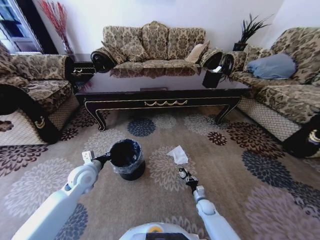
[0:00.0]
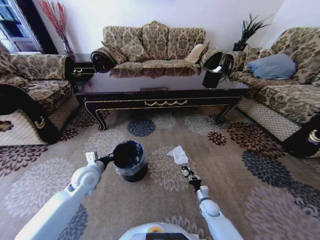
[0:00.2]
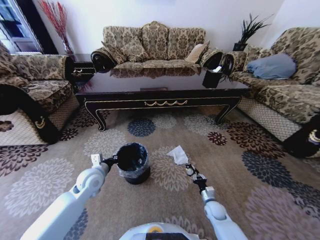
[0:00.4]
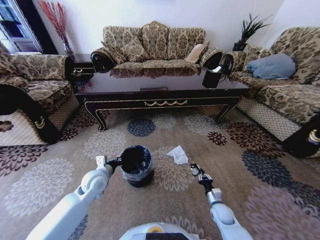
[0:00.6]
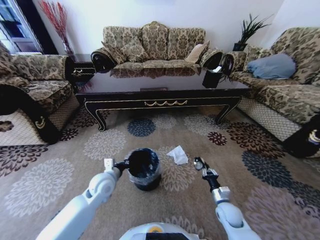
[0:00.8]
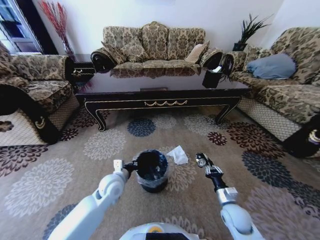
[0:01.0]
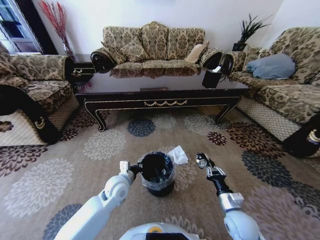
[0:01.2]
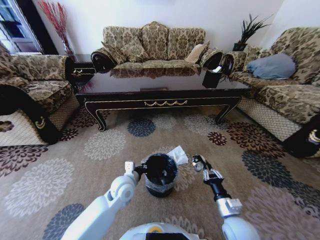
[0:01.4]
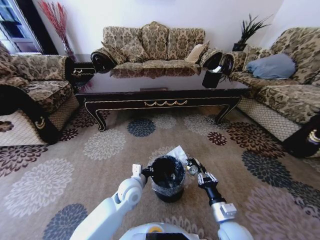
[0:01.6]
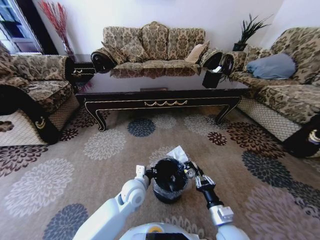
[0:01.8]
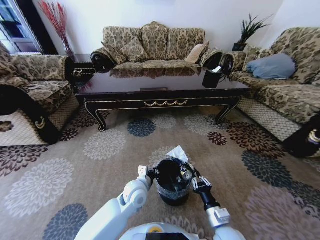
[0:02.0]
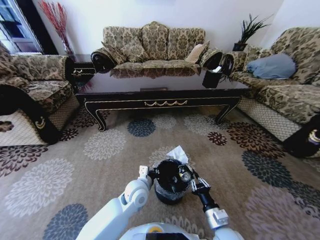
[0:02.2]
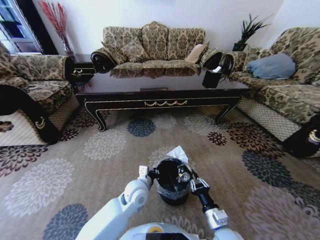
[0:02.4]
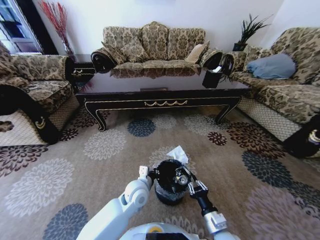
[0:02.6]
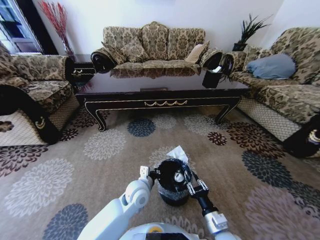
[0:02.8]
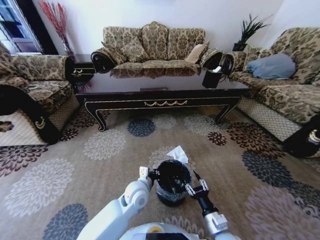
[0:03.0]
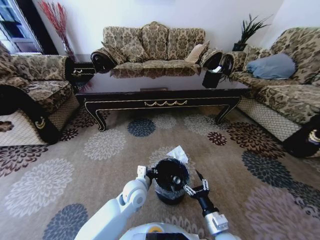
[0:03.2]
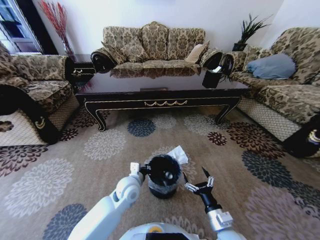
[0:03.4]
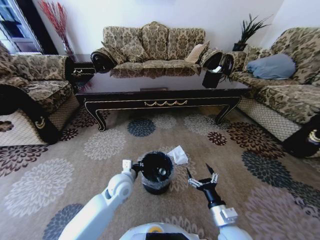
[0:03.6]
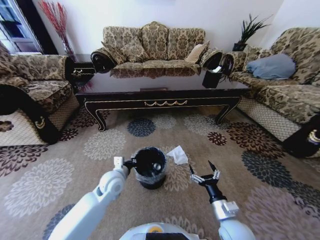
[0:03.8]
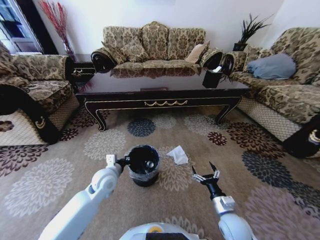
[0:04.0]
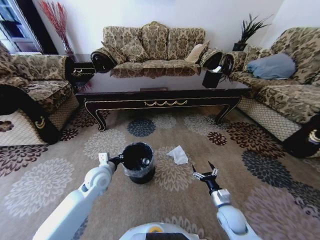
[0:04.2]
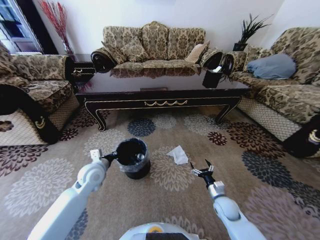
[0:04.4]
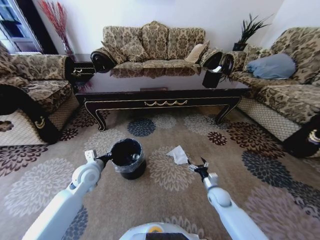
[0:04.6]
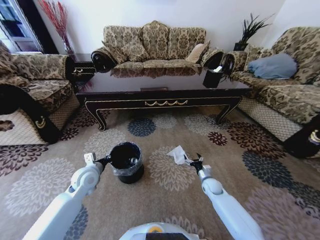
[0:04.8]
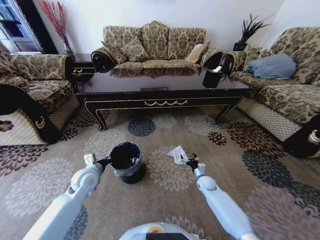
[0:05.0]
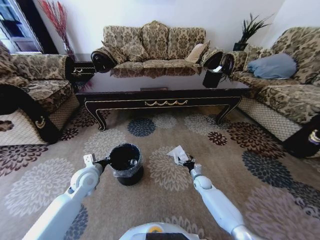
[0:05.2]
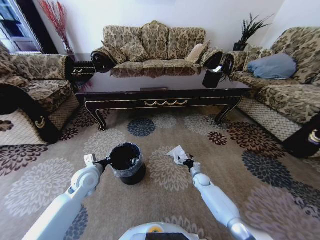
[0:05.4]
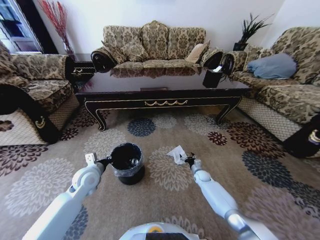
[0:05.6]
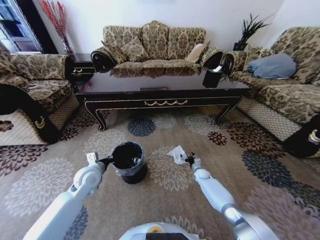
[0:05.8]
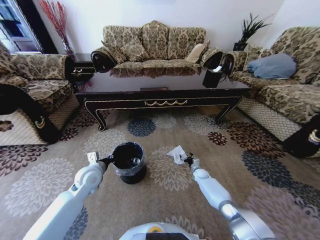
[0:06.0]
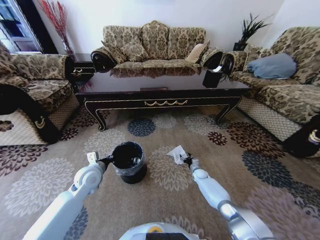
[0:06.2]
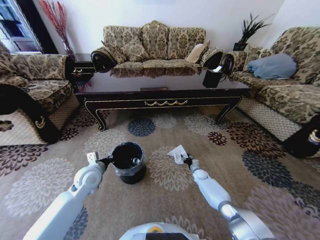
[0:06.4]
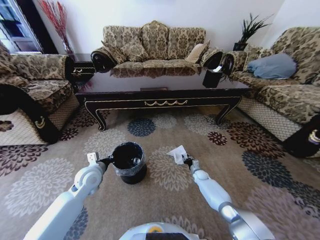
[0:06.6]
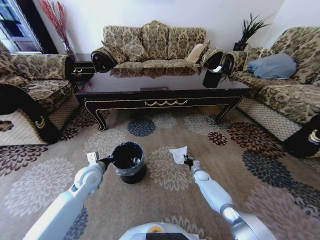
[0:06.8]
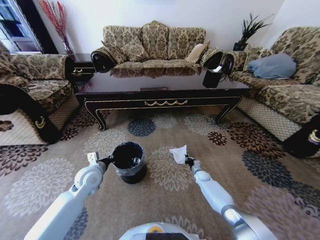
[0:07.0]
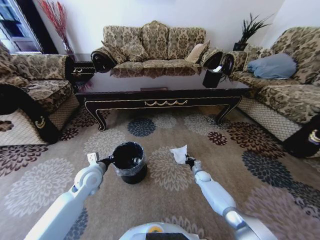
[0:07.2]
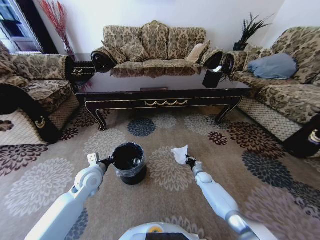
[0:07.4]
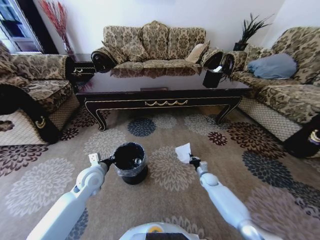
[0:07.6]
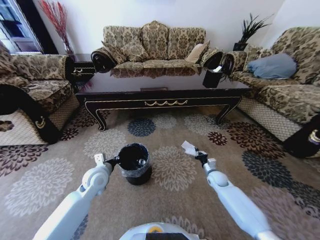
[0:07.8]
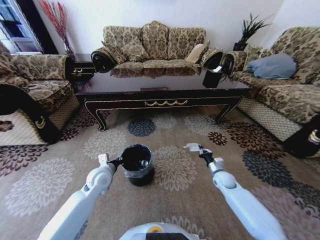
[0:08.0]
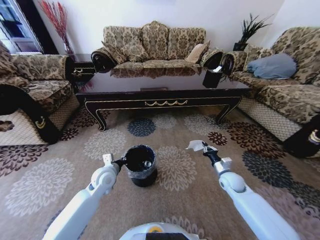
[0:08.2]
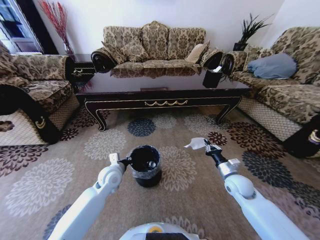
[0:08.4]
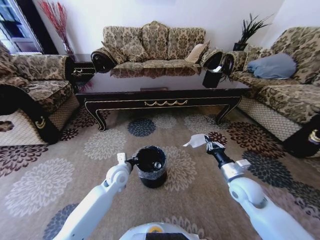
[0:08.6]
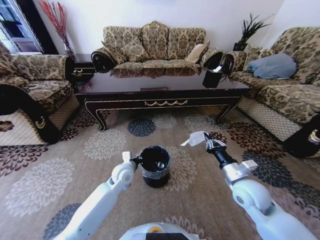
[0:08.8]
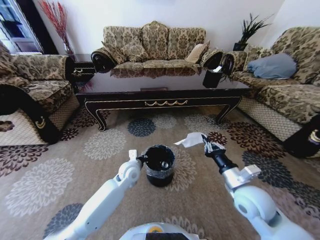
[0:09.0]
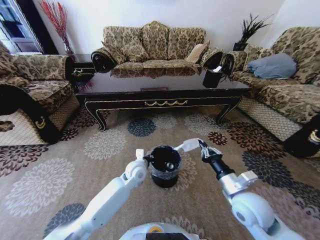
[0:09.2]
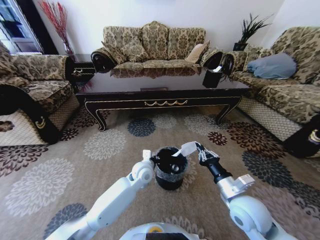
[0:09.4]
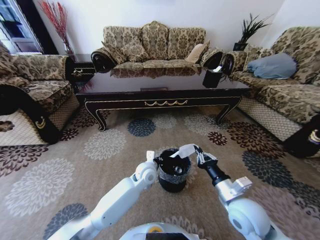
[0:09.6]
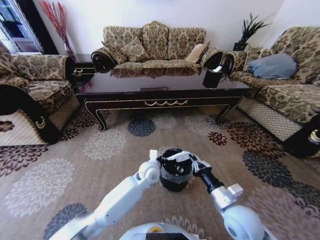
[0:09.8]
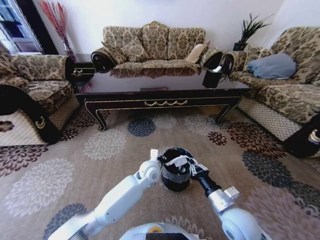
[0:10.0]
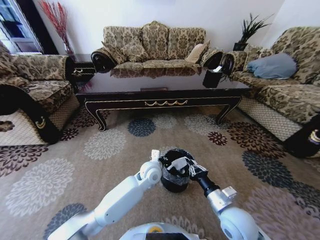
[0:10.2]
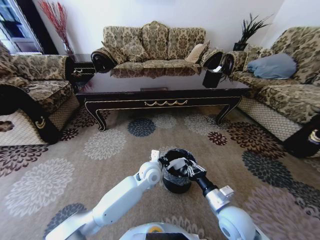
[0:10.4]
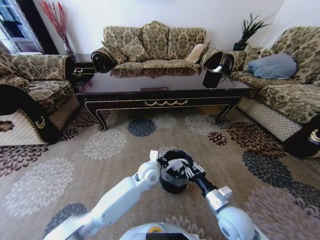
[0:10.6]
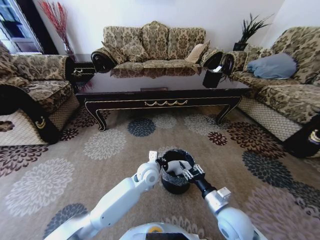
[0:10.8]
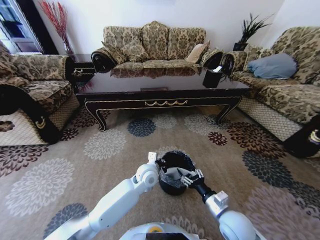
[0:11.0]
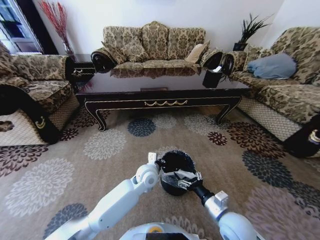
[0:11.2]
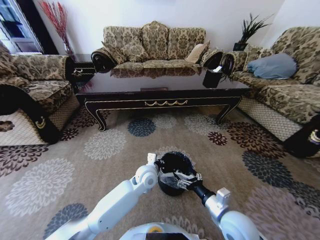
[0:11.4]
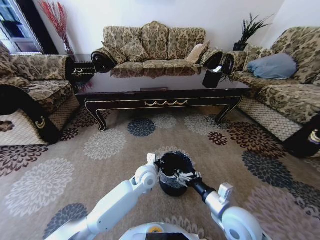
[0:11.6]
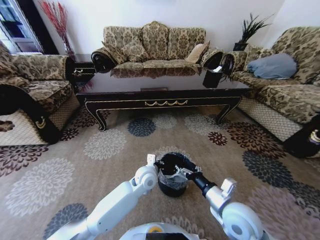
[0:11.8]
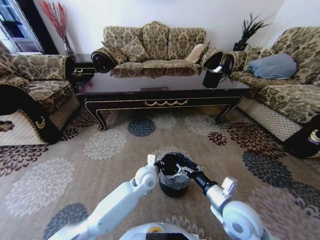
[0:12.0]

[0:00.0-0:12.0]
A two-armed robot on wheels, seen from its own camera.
Task of the whole recording: Move to the front of the table and pick up the trash from the floor, then place it into the trash bin.
0:00.0 to 0:01.6: The left gripper is displaced to the right by some 20 cm, while the right gripper moves upward and backward, about 25 cm.
0:01.6 to 0:03.0: The right gripper opens its fingers.
0:03.0 to 0:04.4: The right gripper shifts roughly 15 cm forward, to the right and downward, and opens up; the left gripper goes about 20 cm to the left.
0:04.4 to 0:06.0: The right gripper moves forward and downward, roughly 25 cm.
0:06.0 to 0:07.6: The right gripper goes some 5 cm backward, and closes.
0:07.6 to 0:09.0: The right gripper shifts approximately 35 cm upward and backward. The left gripper shifts some 15 cm to the right.
0:09.0 to 0:10.4: The right gripper shifts about 5 cm downward, while the left gripper goes some 10 cm to the right.
0:10.4 to 0:12.0: The right gripper moves about 5 cm, and opens.

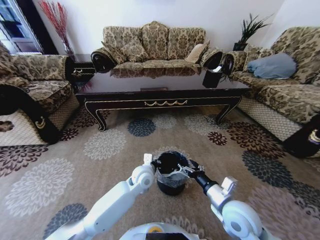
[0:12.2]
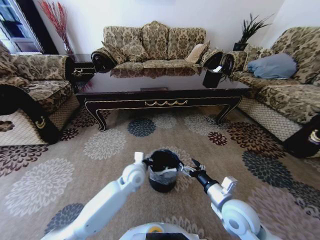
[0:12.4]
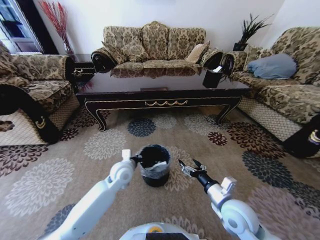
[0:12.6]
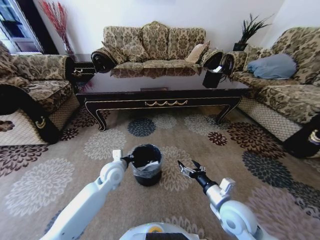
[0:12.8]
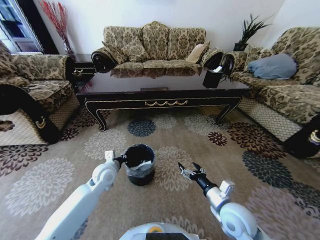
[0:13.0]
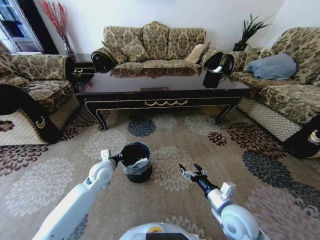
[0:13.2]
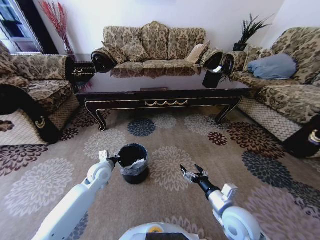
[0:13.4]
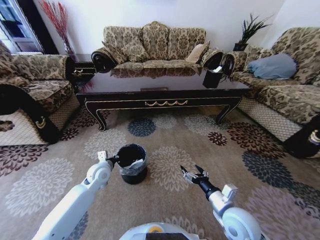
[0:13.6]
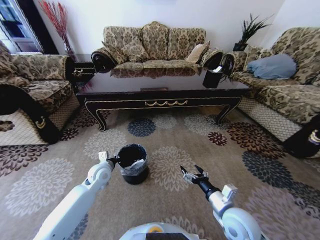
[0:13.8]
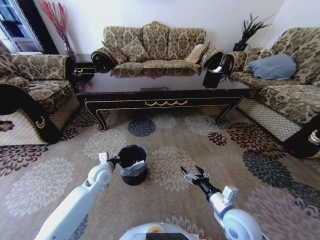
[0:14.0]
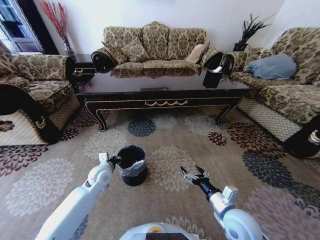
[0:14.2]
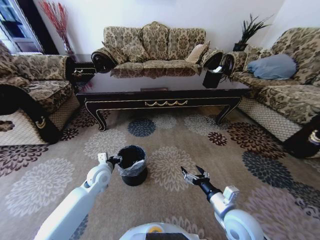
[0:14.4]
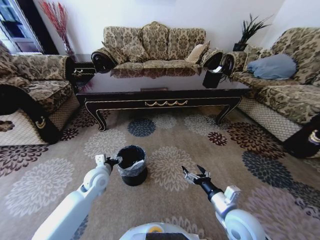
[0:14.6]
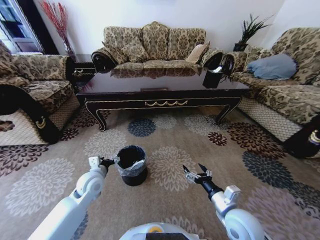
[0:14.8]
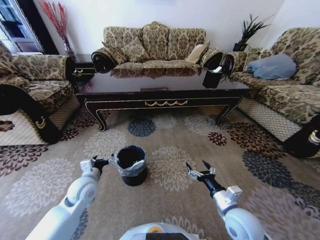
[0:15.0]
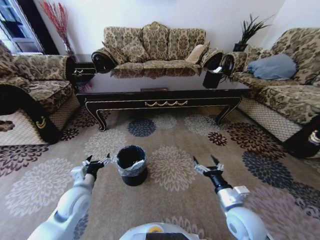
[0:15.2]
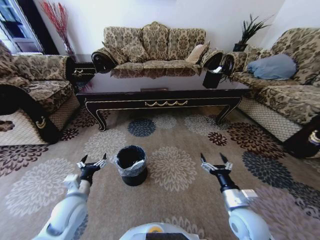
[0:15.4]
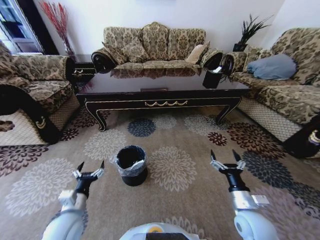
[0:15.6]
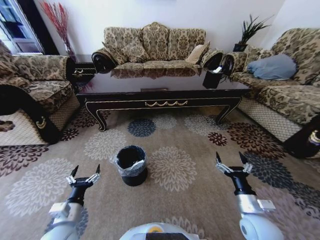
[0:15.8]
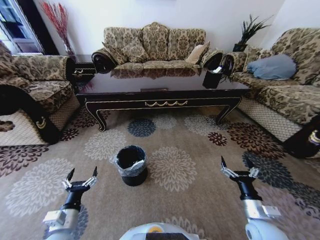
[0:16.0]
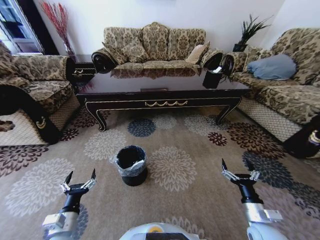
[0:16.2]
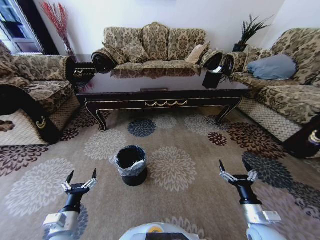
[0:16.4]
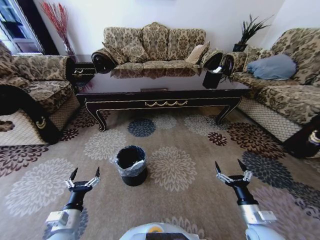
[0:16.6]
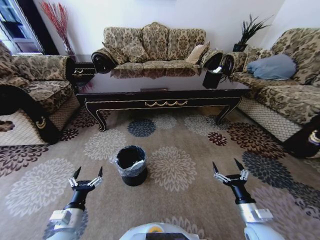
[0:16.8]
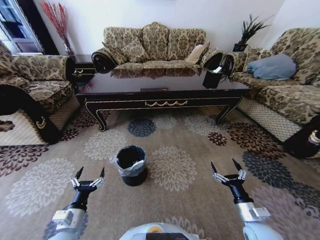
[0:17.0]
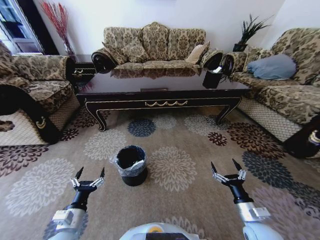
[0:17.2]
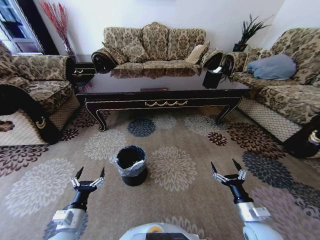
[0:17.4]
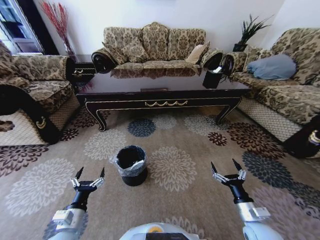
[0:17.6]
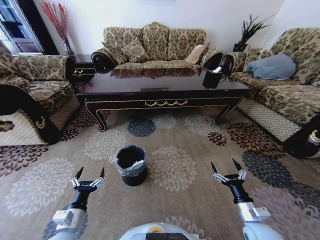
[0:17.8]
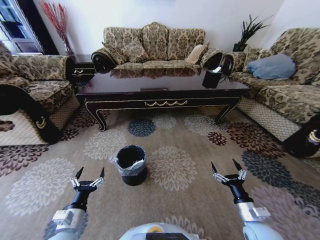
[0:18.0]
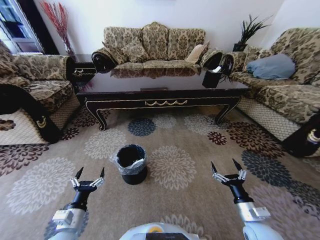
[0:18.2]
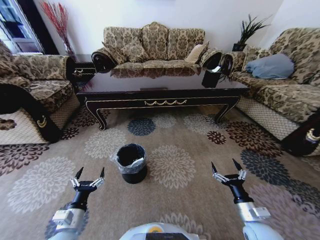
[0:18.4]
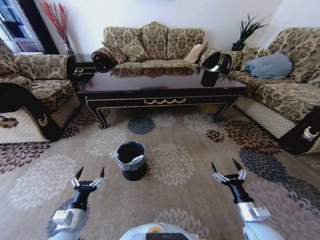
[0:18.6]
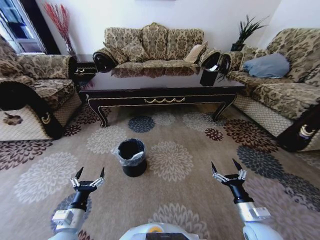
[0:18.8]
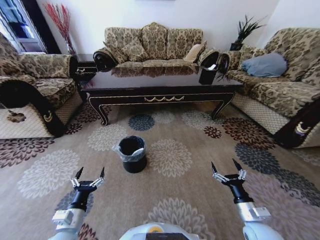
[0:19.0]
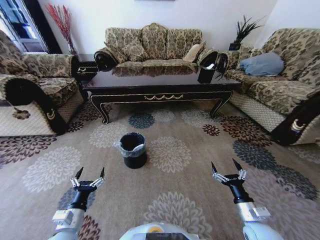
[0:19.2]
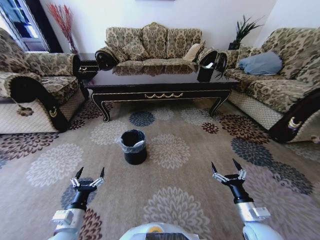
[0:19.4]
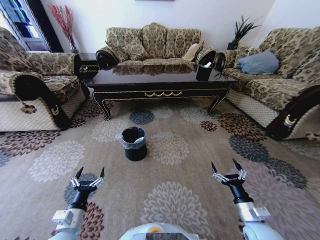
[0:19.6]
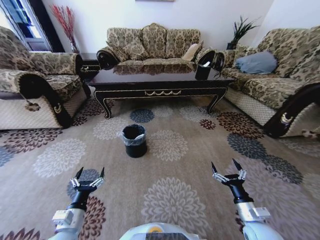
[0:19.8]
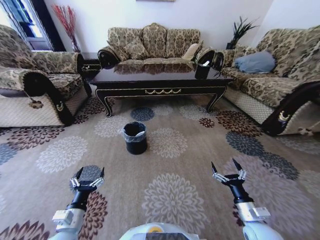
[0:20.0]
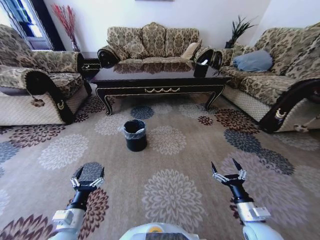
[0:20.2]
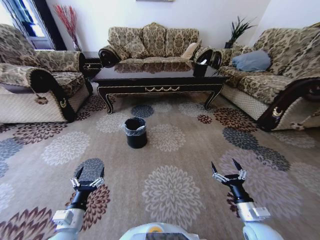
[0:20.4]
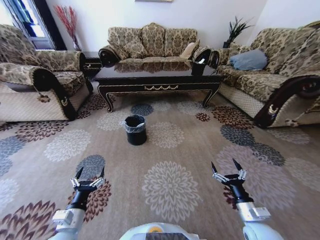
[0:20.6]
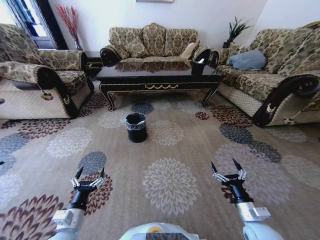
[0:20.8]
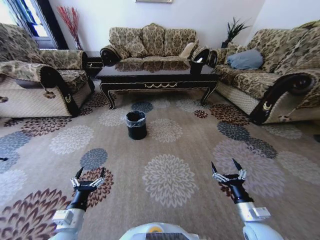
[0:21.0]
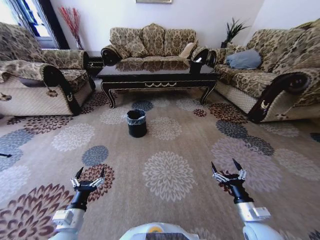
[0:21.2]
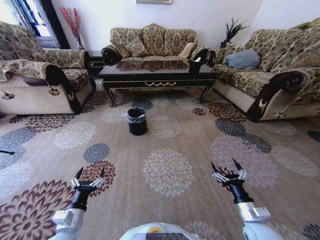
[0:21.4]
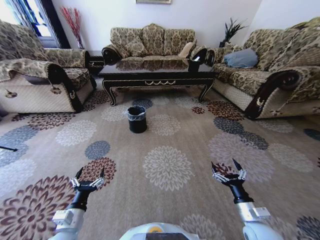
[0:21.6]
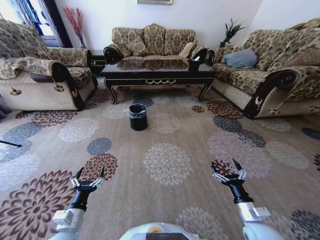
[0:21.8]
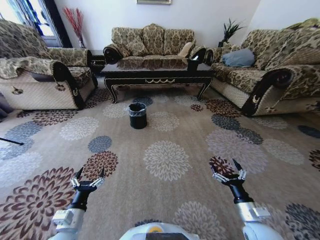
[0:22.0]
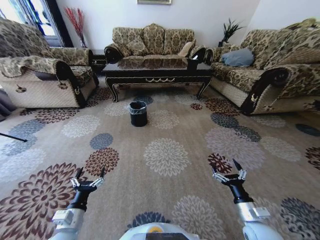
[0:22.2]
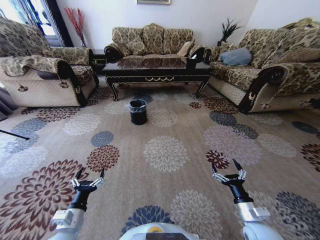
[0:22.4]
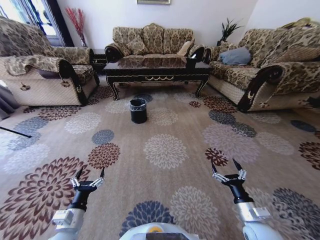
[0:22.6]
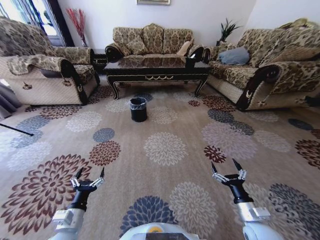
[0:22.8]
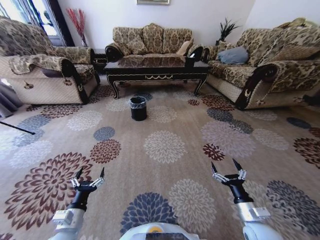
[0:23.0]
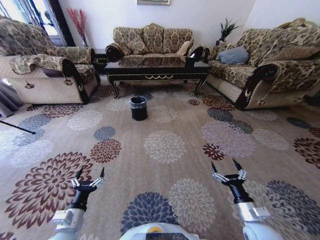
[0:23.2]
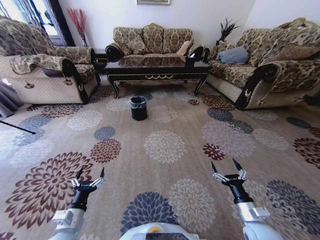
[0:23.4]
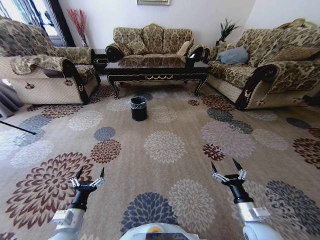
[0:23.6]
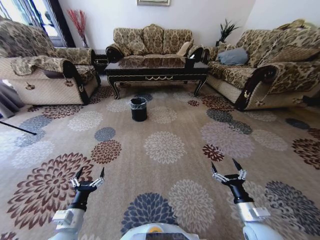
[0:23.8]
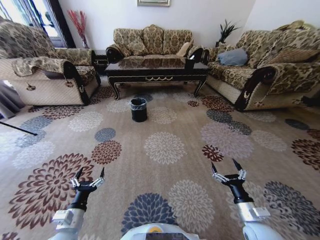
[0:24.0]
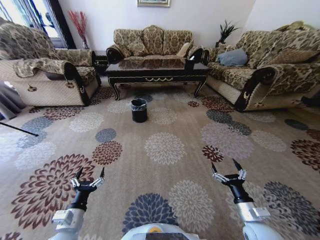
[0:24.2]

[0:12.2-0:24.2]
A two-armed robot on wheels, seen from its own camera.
Task of the whole recording: Move to the front of the table and pick up the trash from the floor, then place it into the trash bin.
0:12.2 to 0:13.8: The left gripper heads to the left, covering about 20 cm.
0:13.8 to 0:15.2: The left gripper goes roughly 10 cm backward, and opens its fingers.
0:15.2 to 0:16.6: The right gripper moves to the right, approximately 10 cm. Meanwhile the left gripper is displaced backward by roughly 15 cm.
0:16.6 to 0:18.2: Both grippers stay about where they are.
